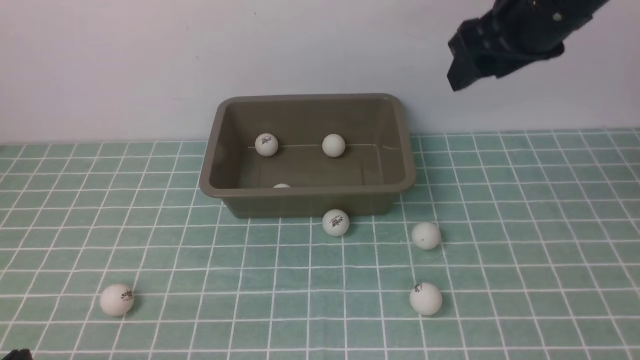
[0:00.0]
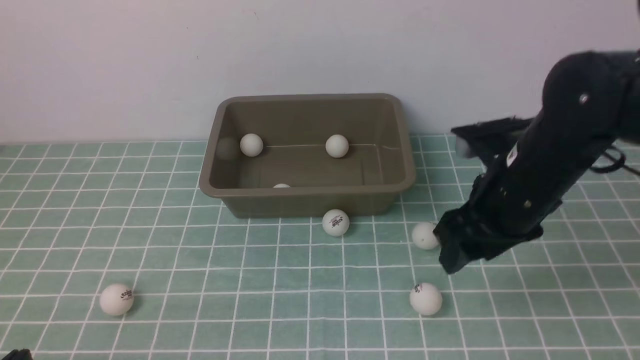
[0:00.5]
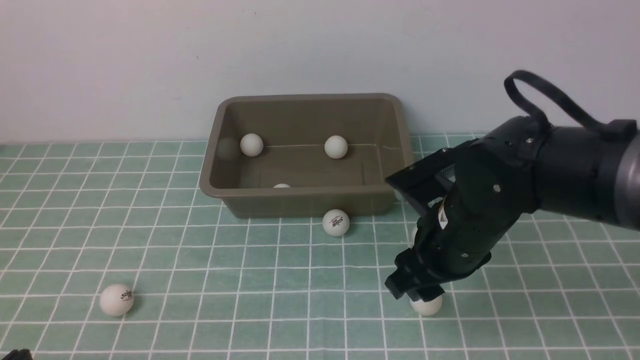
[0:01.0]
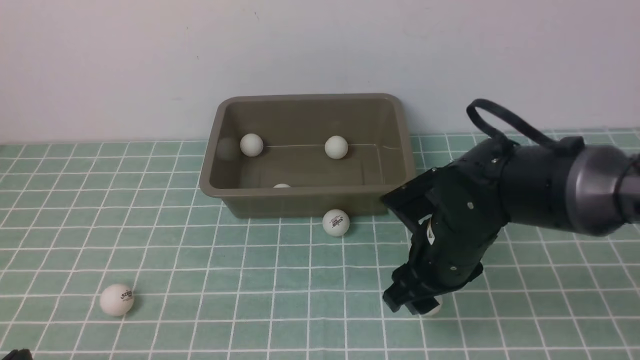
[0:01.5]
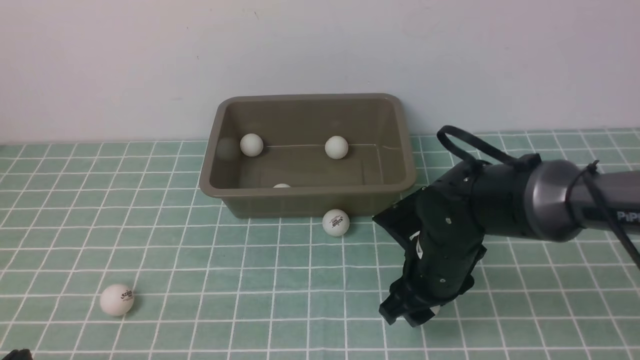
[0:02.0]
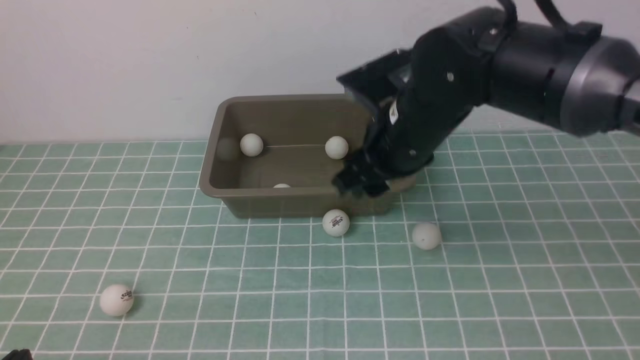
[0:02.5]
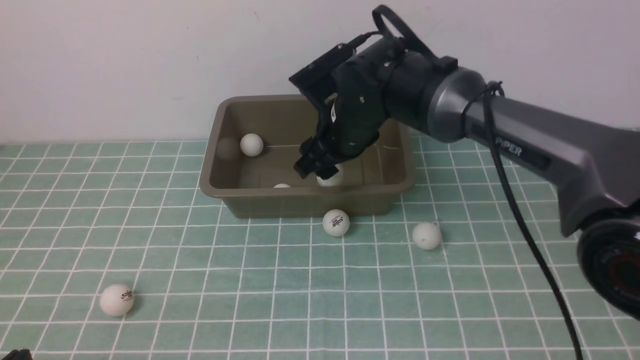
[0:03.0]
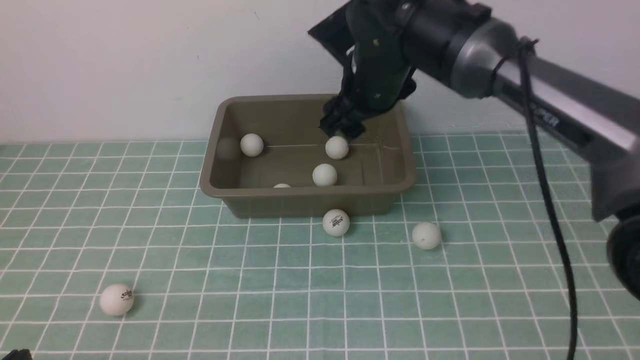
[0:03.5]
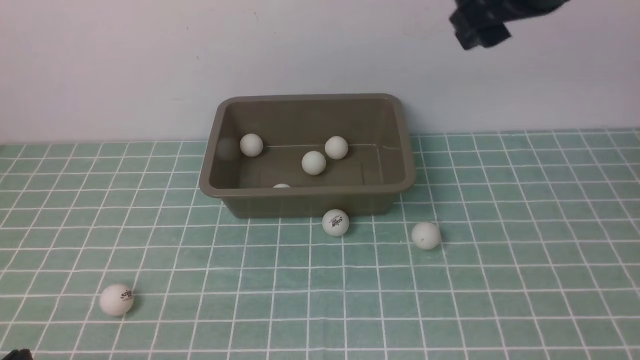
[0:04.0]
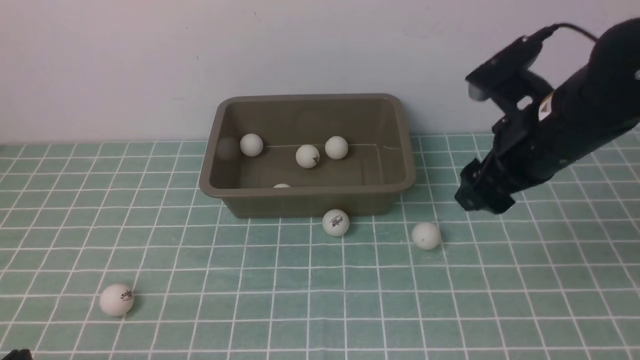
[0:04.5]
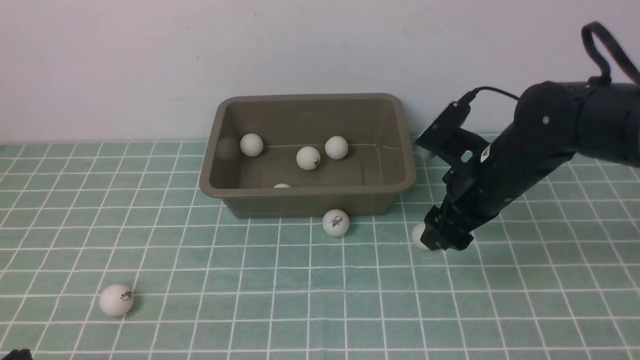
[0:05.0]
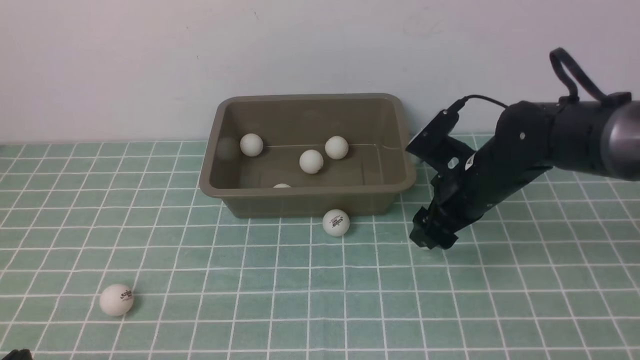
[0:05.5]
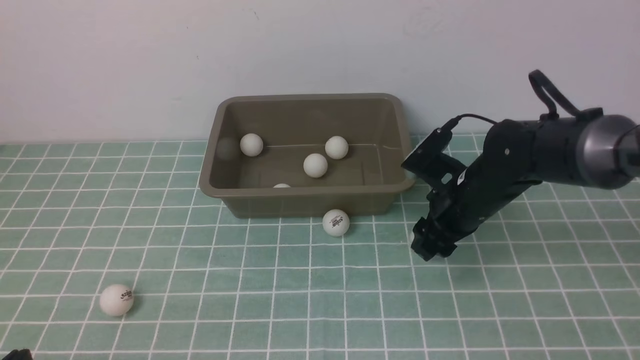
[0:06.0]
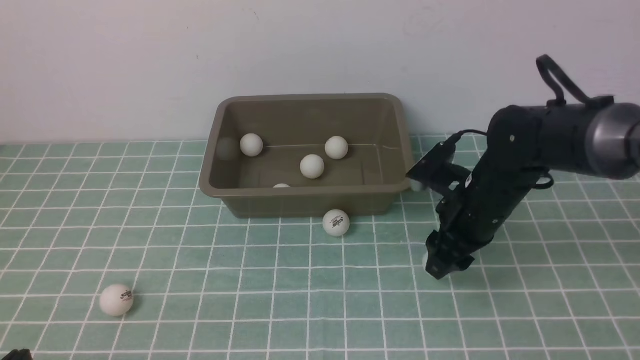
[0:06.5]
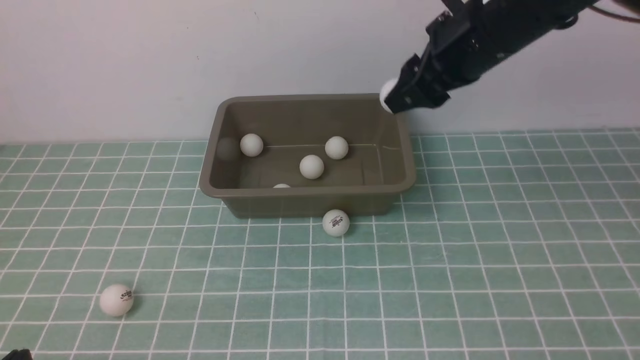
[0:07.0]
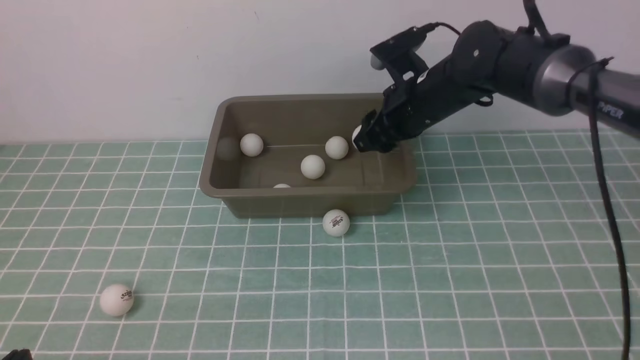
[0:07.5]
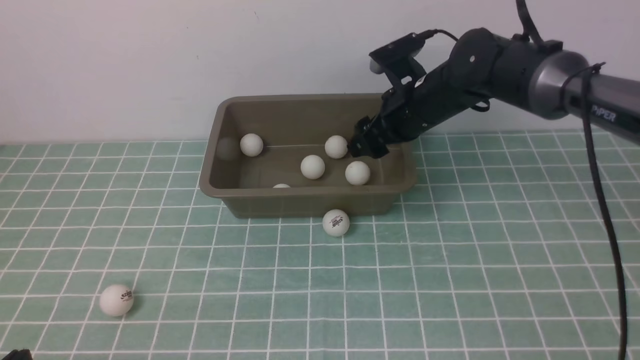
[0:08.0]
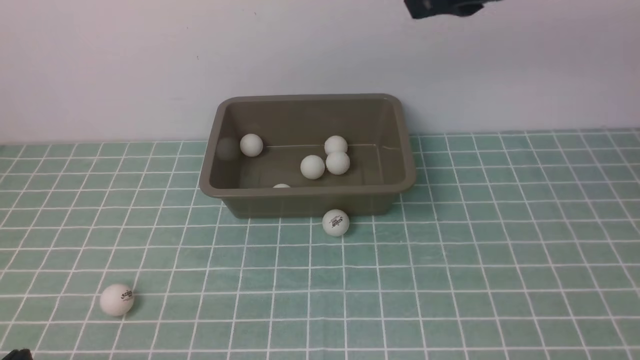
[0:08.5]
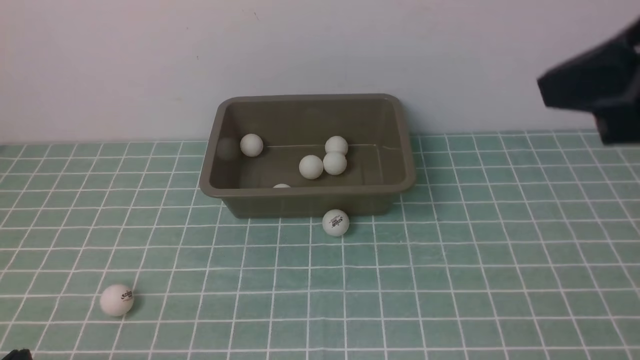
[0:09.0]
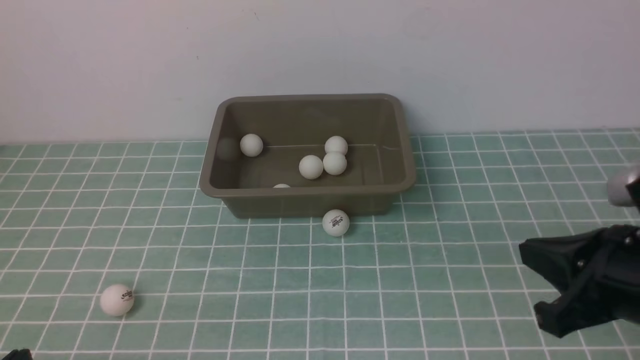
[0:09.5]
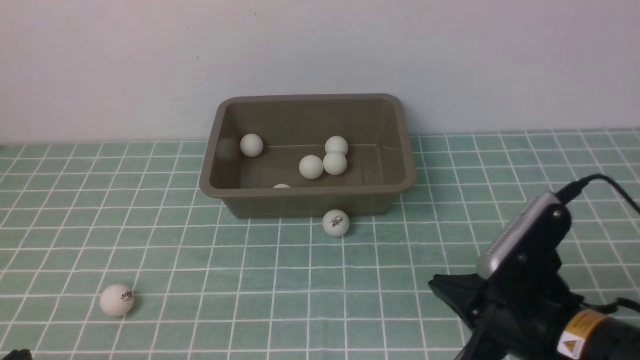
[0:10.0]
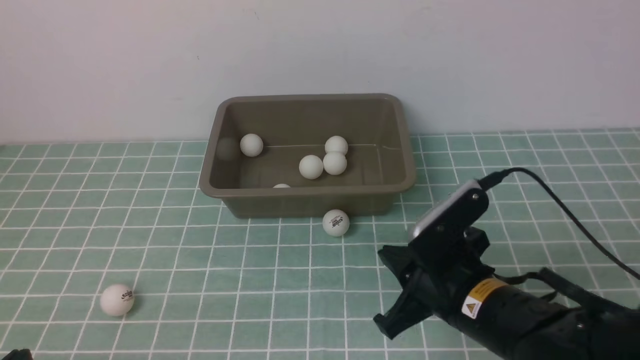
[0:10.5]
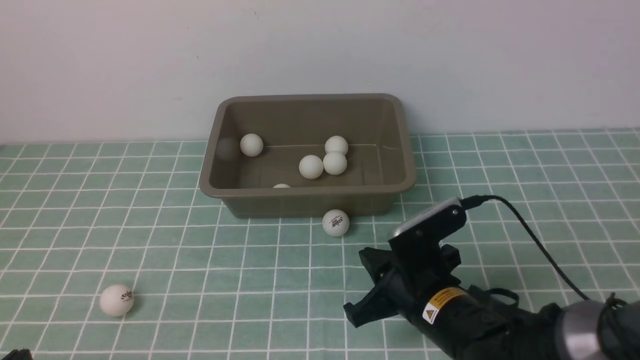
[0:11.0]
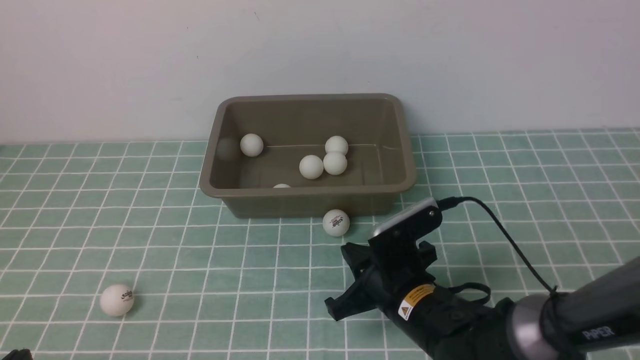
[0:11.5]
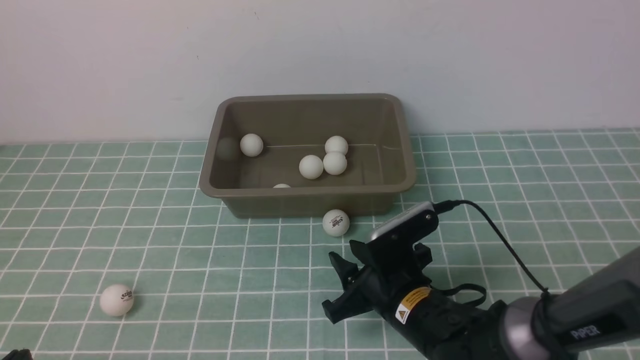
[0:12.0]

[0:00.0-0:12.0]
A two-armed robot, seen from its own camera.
Step, 0:00.0 to 0:02.0: use the right arm to clamp the table tennis ball closest to it.
Step, 0:02.5 to 0:03.0: use the right arm to put the table tennis ball into the box.
Step, 0:03.5 to 0:06.5: use the right arm to clamp the table tennis ball closest to it.
Step, 0:07.0 to 0:07.5: use the right arm to put the table tennis ball into the box.
0:00.0 to 0:02.0: The right gripper is displaced downward by approximately 20 cm.
0:02.0 to 0:04.0: The right gripper moves up and down over some 25 cm, changing direction 2 times.
0:04.0 to 0:06.0: The right gripper moves downward, some 25 cm.
0:06.0 to 0:08.0: The right gripper swings up and down, roughly 25 cm each way, with 2 reversals.
0:08.0 to 0:10.0: The right gripper shifts some 30 cm downward and backward, and closes up.
0:10.0 to 0:12.0: The right gripper heads downward, forward and to the left, covering about 10 cm, and opens.

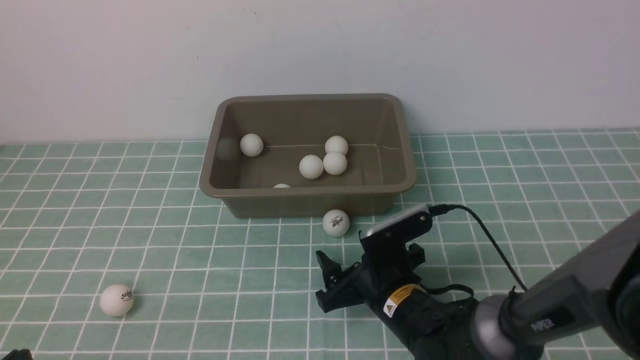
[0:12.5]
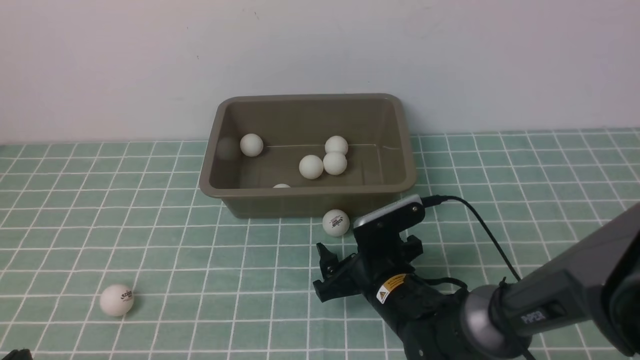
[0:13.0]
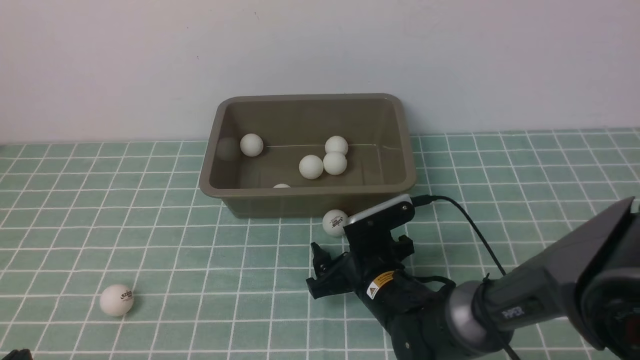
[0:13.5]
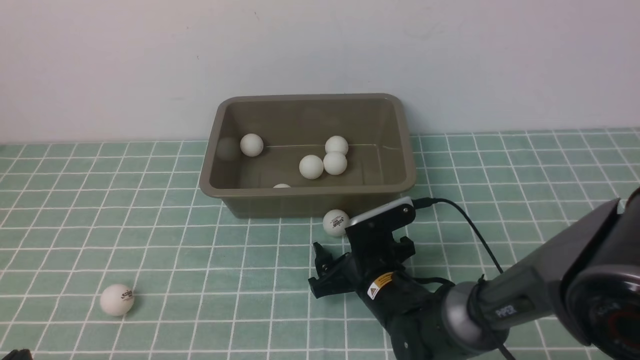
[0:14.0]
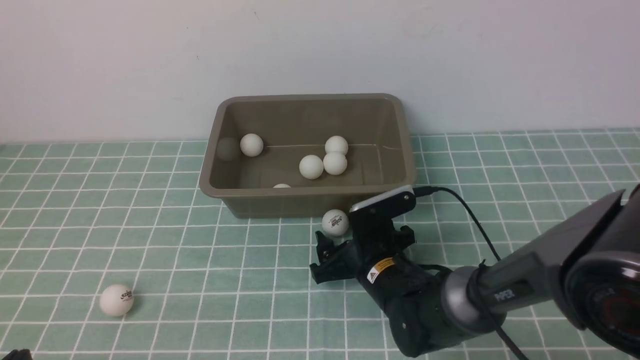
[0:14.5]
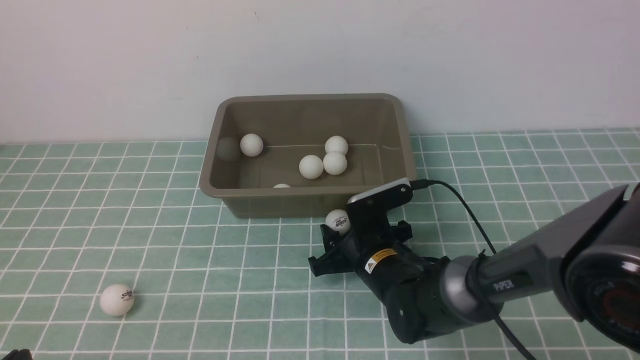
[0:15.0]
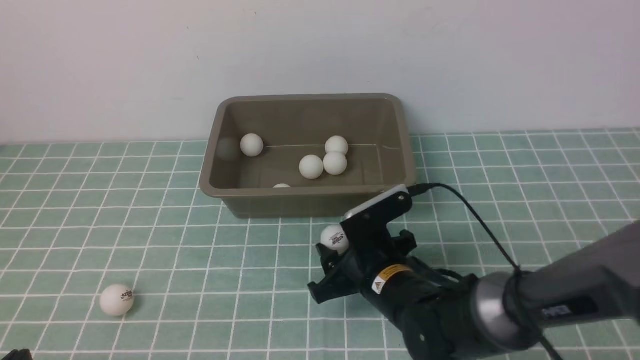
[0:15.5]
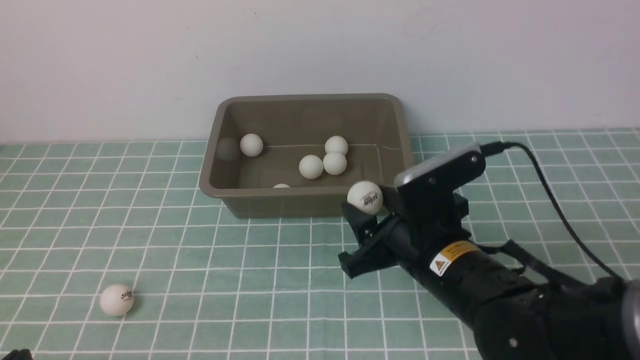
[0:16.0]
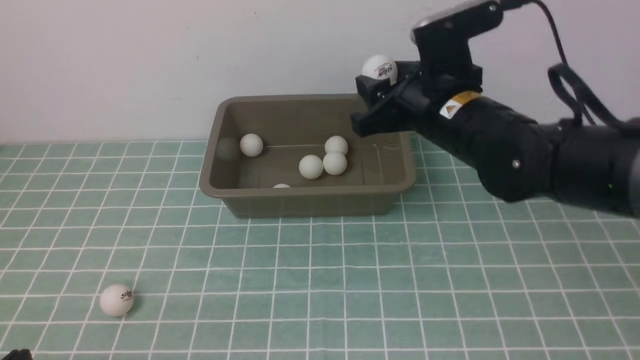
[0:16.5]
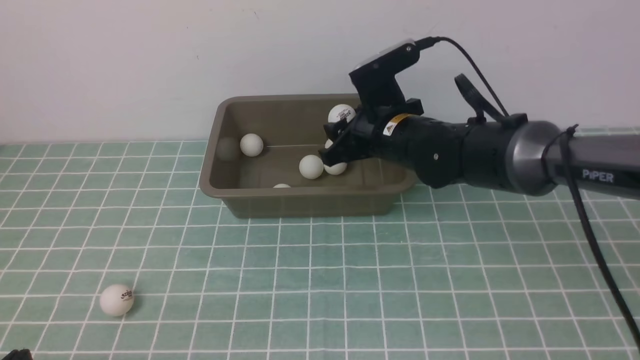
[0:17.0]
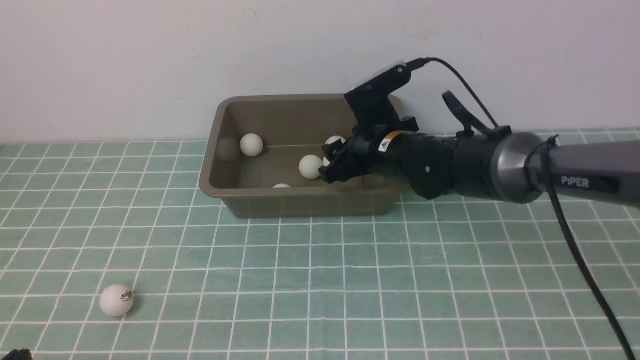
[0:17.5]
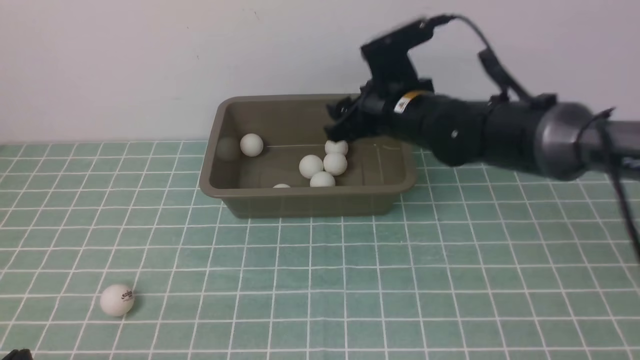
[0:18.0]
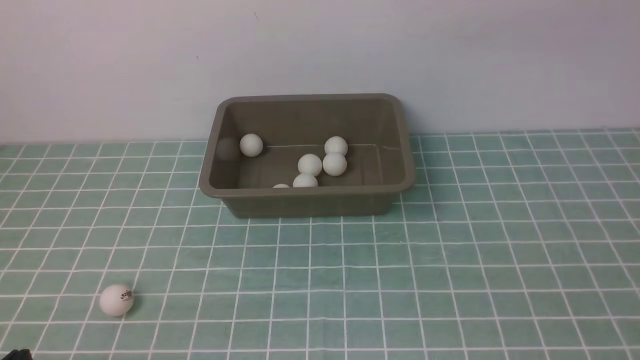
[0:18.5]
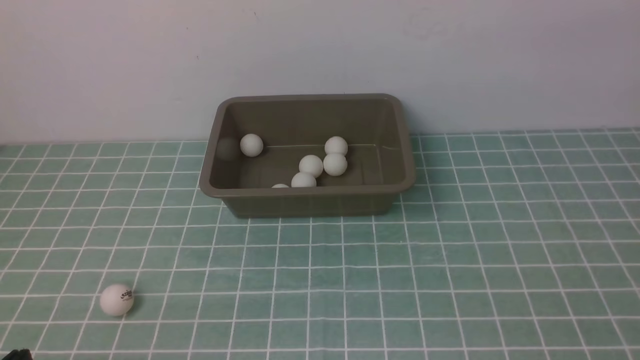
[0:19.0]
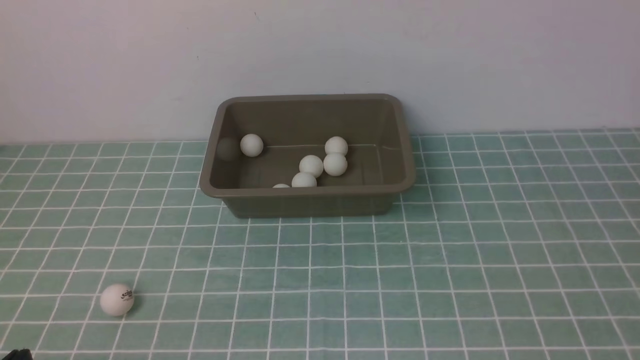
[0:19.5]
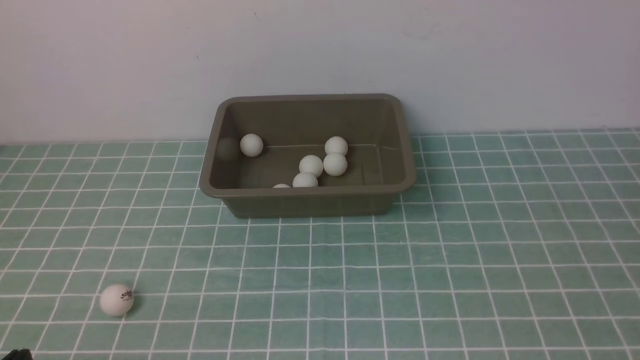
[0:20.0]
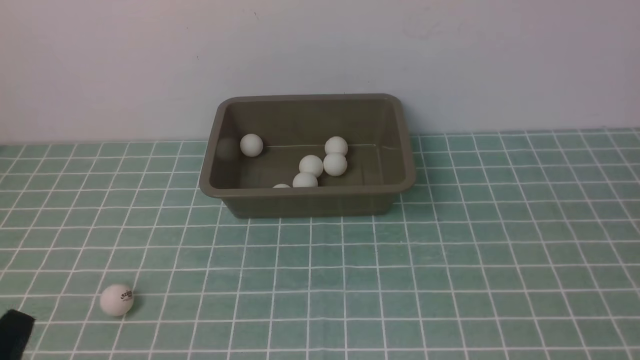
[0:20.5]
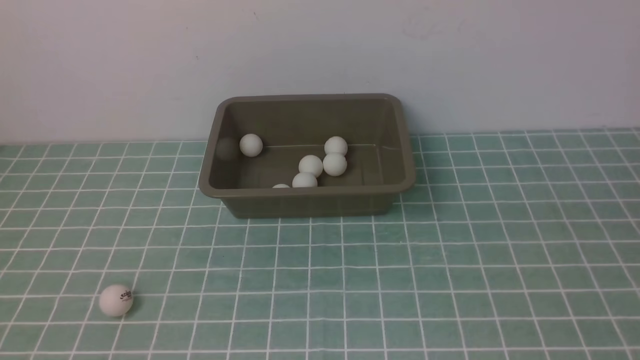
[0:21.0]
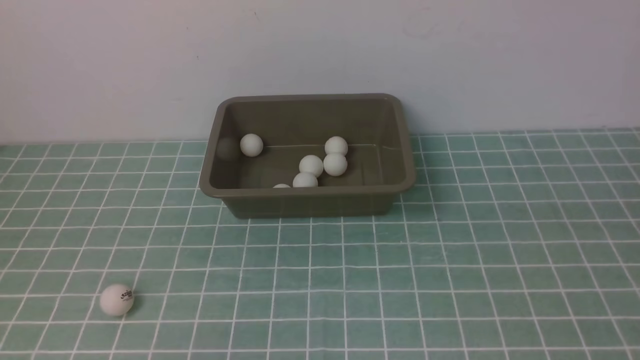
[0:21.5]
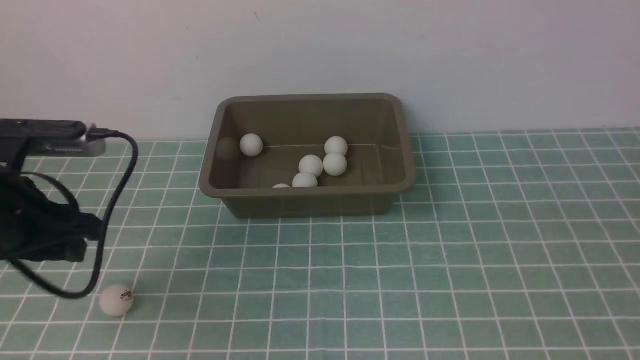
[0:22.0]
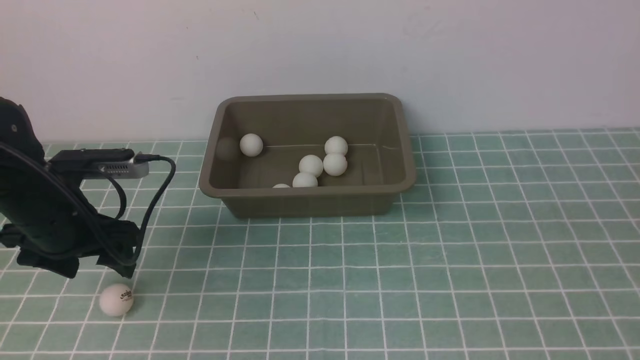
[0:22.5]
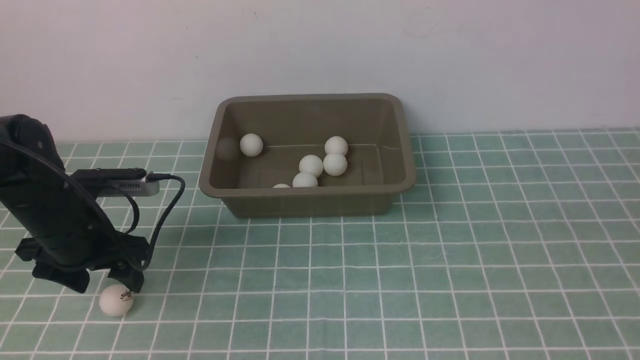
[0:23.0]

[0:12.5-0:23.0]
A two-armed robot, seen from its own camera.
Step, 0:12.5 to 0:15.5: use the right arm to clamp the table tennis ball closest to it.
Step, 0:16.0 to 0:17.5: use the right arm to put the table tennis ball into the box.
0:12.5 to 0:14.5: The grippers stay close to where they were, moving slightly.
0:14.5 to 0:16.5: The right gripper is displaced upward and forward by about 15 cm.
0:16.5 to 0:19.0: The right gripper is displaced to the right, upward and backward by roughly 35 cm, and closes.
0:21.0 to 0:23.0: The left gripper moves forward and downward, some 30 cm, and opens.
